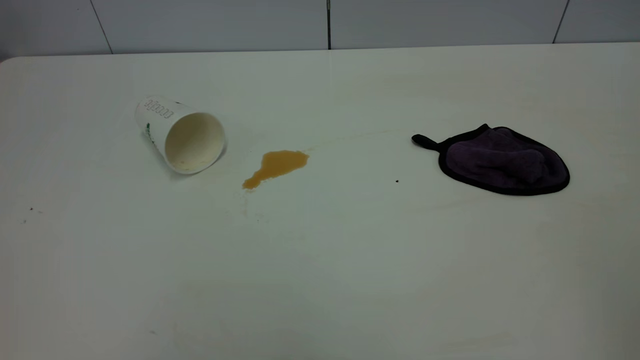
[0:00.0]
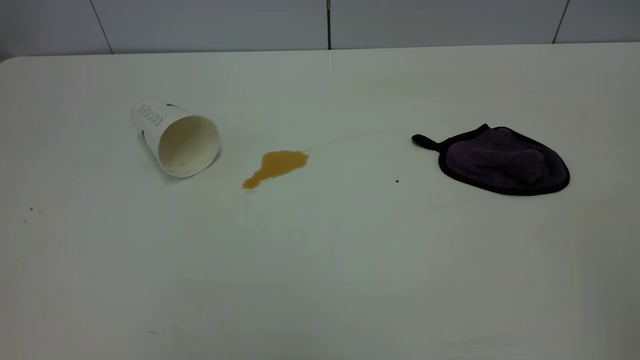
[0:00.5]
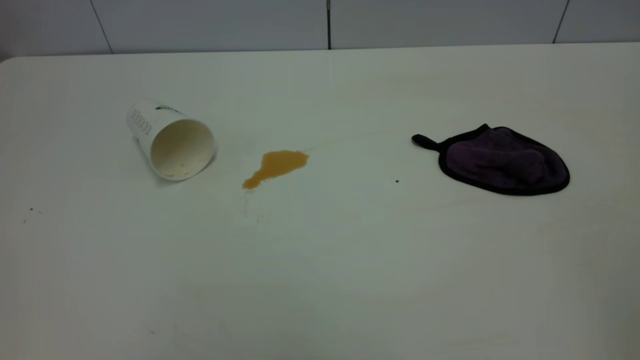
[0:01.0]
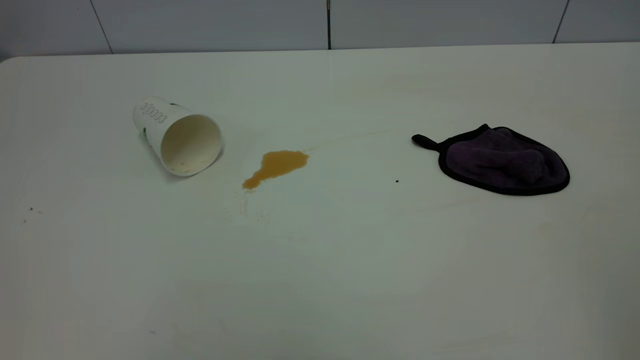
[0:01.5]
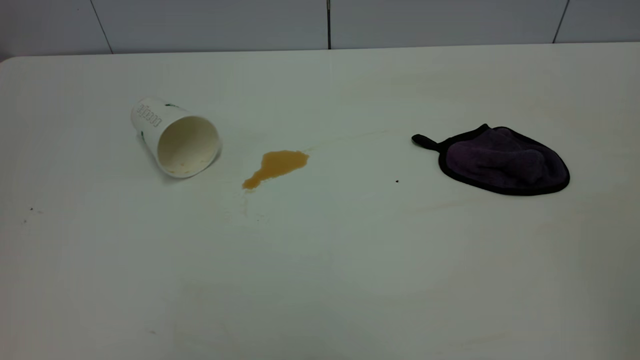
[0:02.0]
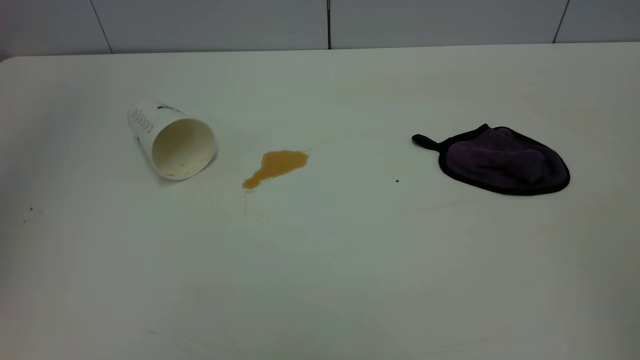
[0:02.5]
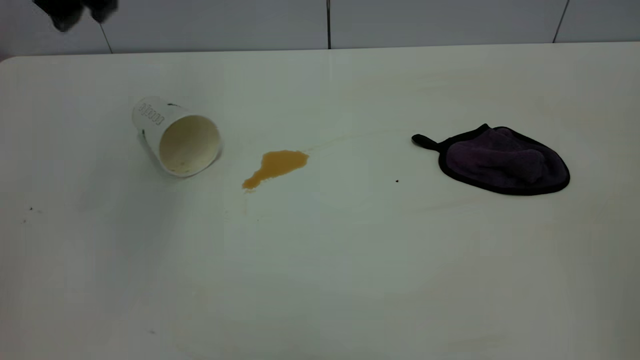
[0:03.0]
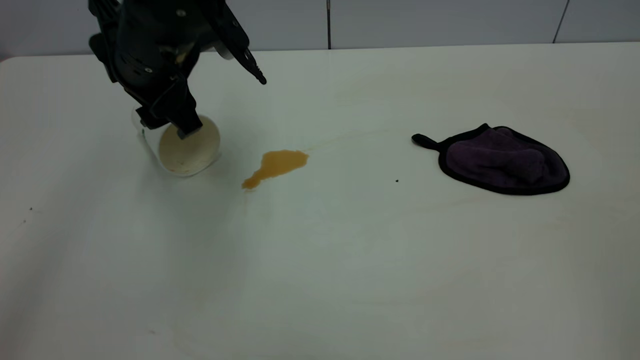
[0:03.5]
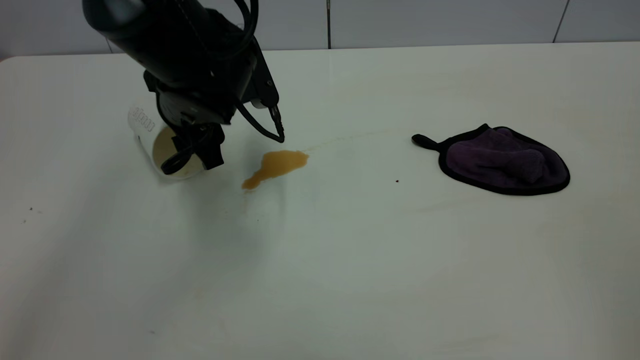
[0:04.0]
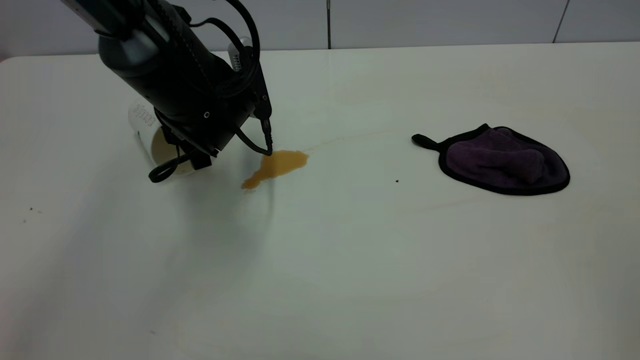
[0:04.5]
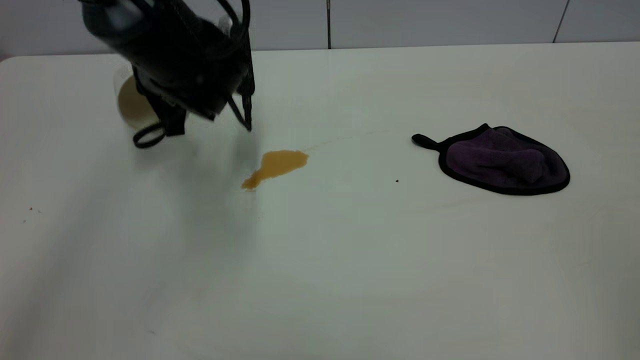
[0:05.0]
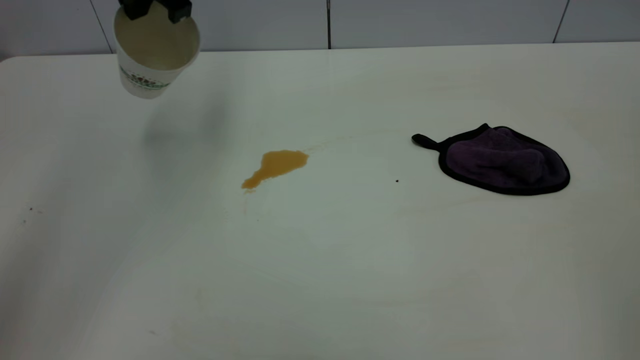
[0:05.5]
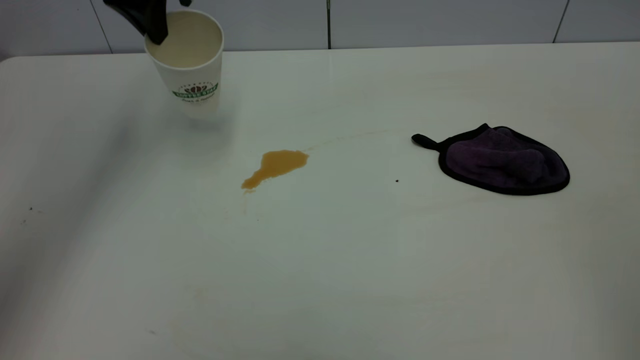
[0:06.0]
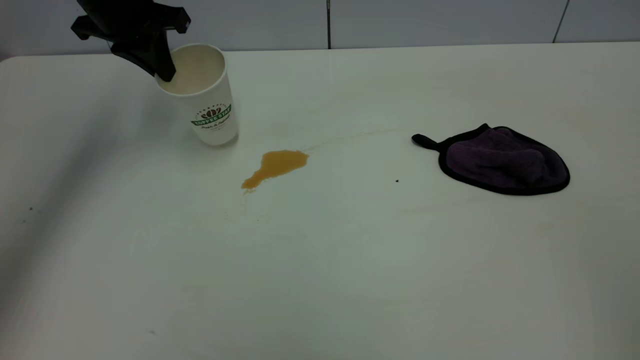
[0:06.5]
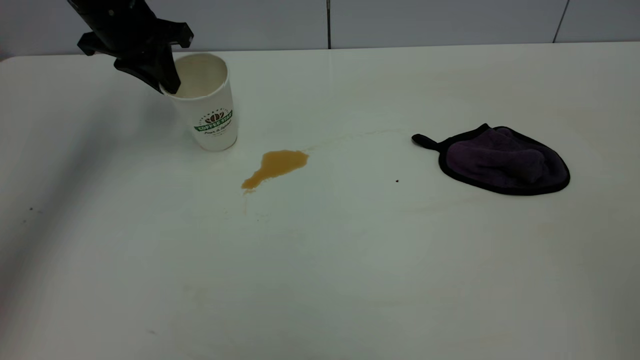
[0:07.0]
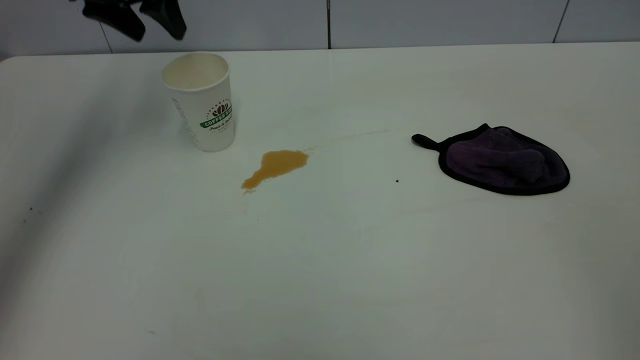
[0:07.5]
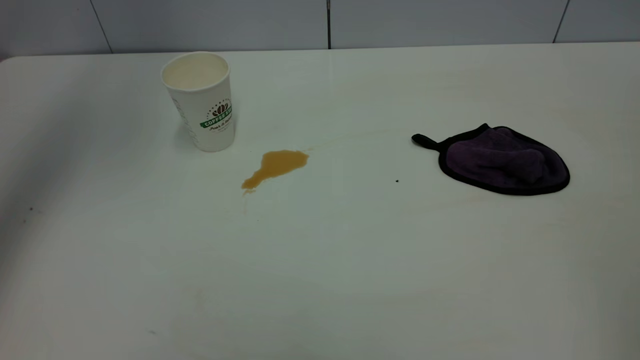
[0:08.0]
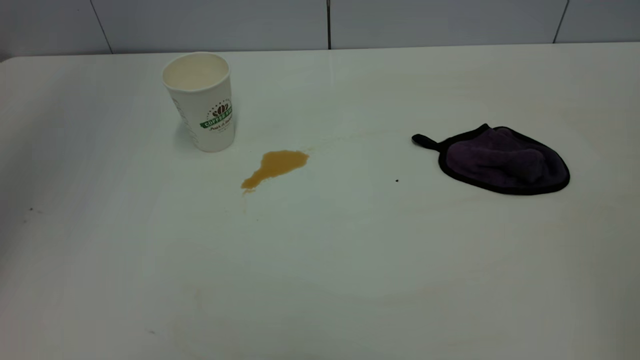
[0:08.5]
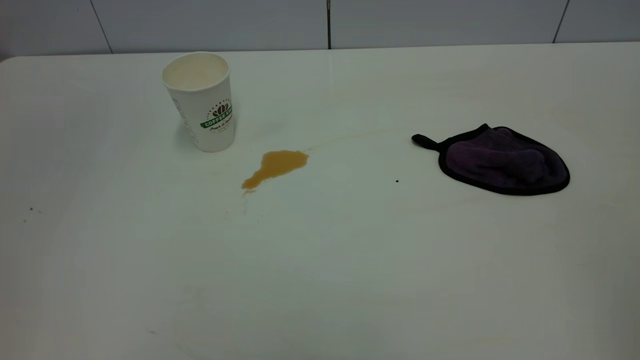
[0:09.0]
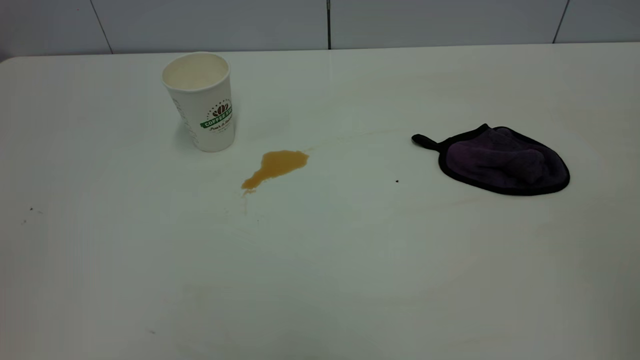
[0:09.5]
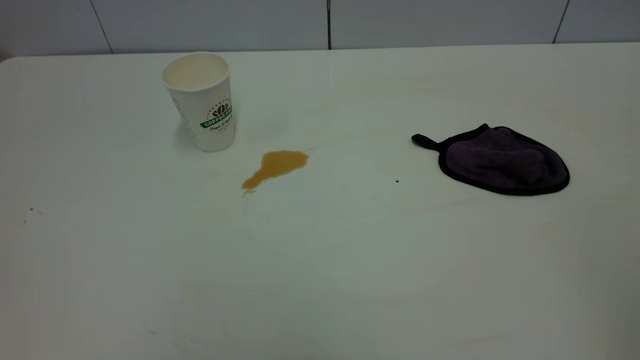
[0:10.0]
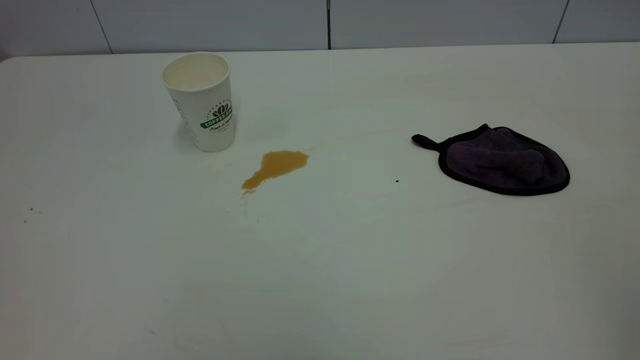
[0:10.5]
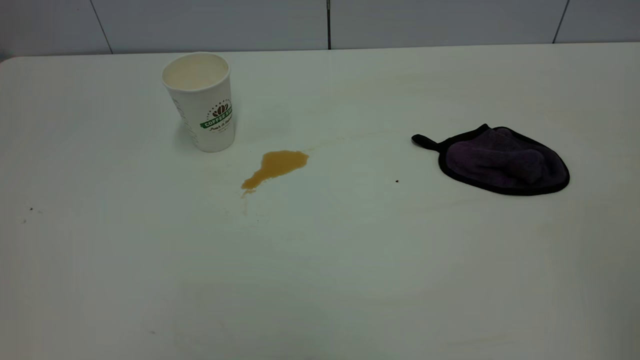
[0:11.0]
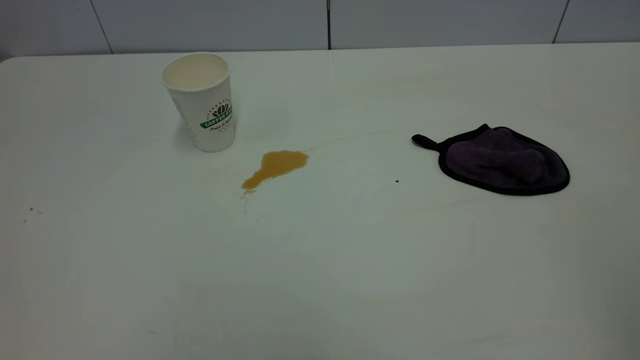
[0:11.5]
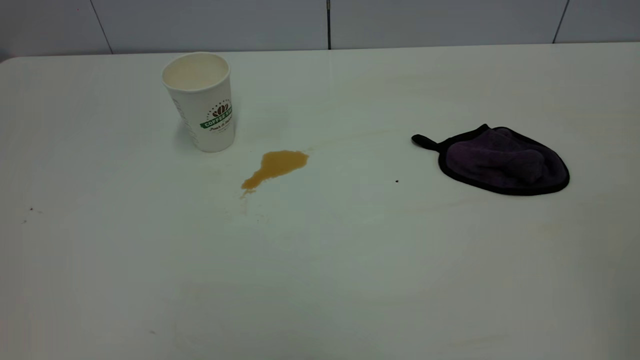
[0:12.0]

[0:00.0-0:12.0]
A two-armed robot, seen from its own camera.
Task of the whole recording: the left gripper pick up the fallen cup and place it upright, the right gripper grasp the purple rag and wipe the tea stain on the table, the right gripper put the purple rag back in its original position.
Step, 0:00.0 to 0:07.0: Stand the paper cup upright.
0:02.0 to 0:04.0: The left gripper travels downward, forward and to the right by approximately 50 cm.
0:04.0 to 0:06.0: The left gripper goes approximately 20 cm upward, forward and to the left, and closes up.
0:06.0 to 0:08.0: The left gripper moves upward, approximately 15 cm, and opens.
0:08.0 to 0:10.0: The left gripper heads backward, covering about 40 cm.

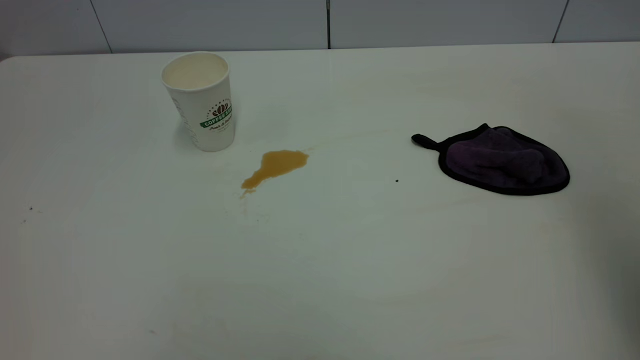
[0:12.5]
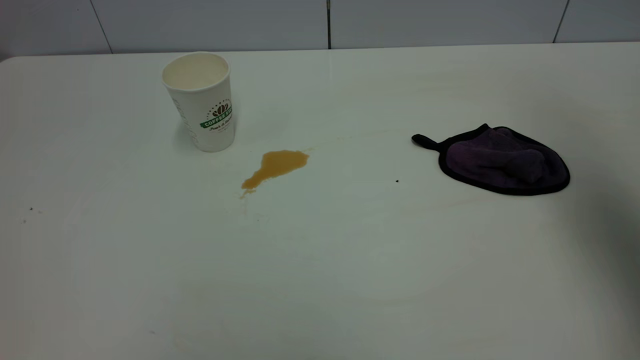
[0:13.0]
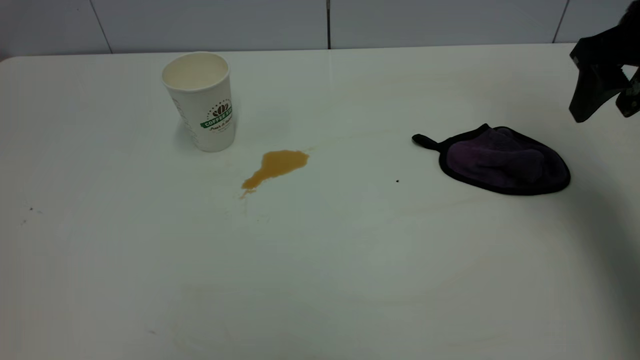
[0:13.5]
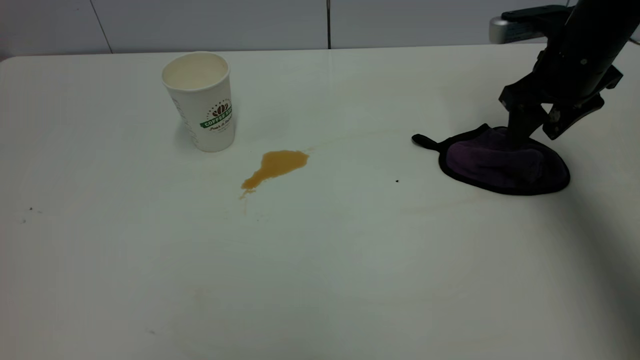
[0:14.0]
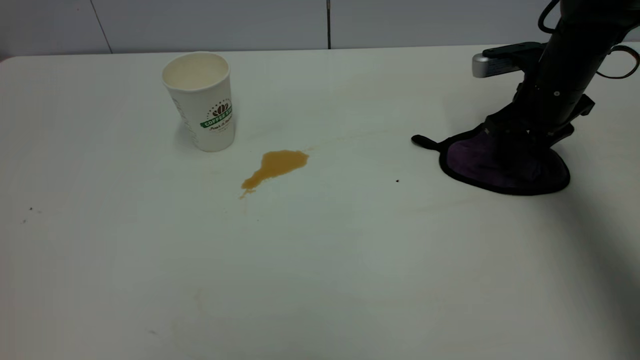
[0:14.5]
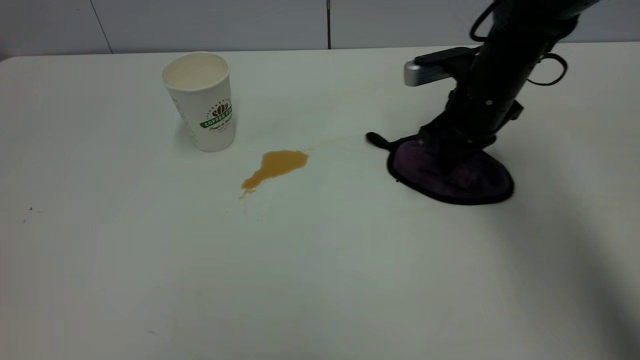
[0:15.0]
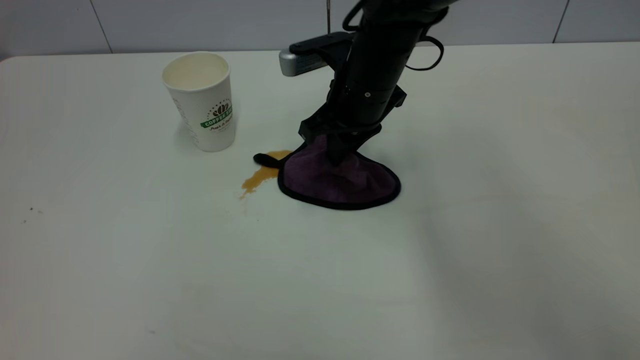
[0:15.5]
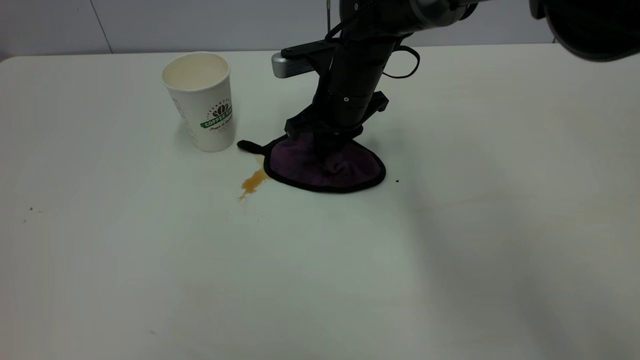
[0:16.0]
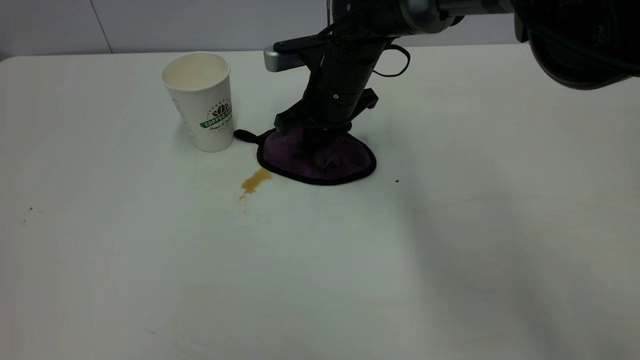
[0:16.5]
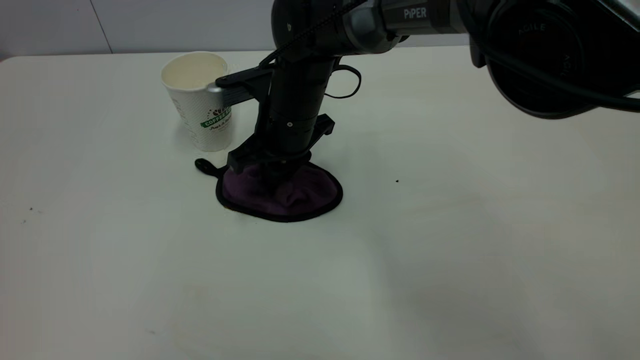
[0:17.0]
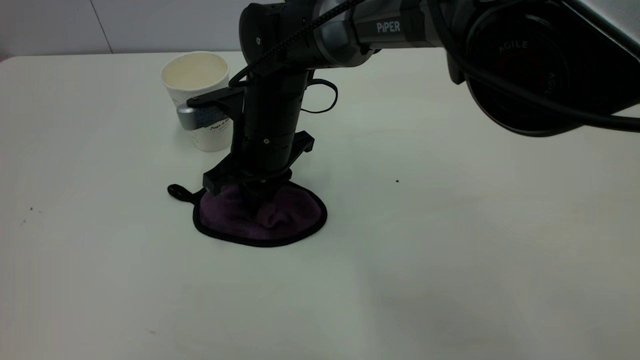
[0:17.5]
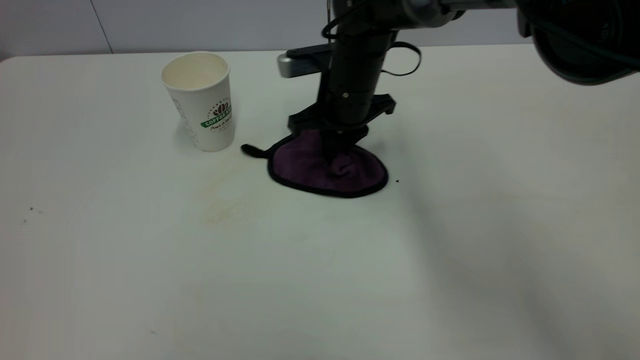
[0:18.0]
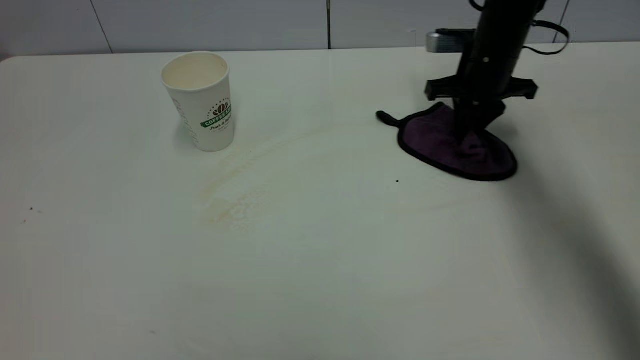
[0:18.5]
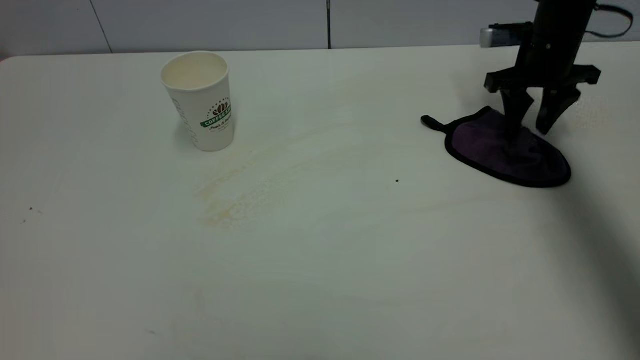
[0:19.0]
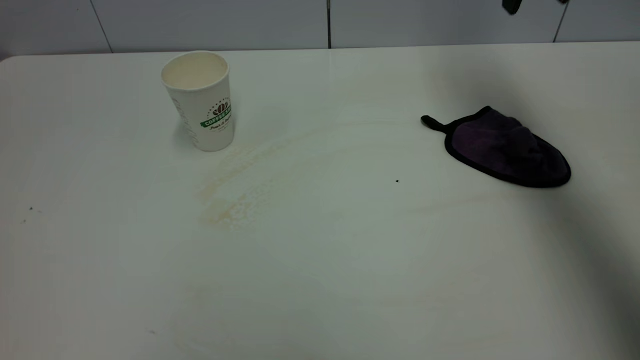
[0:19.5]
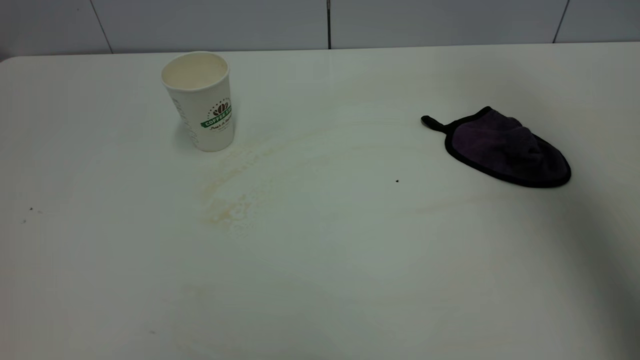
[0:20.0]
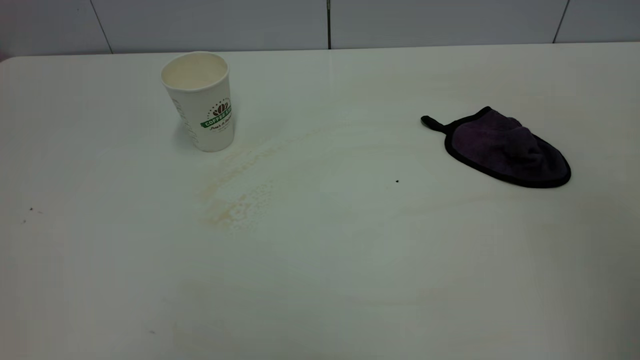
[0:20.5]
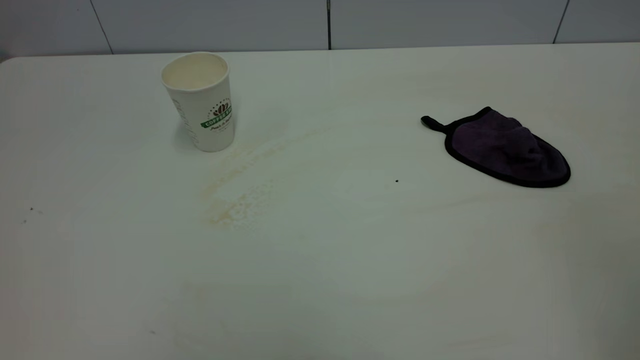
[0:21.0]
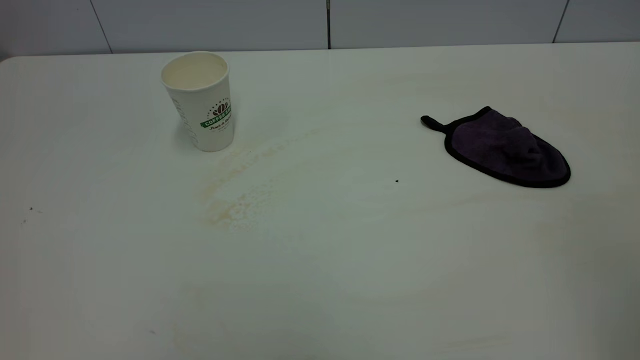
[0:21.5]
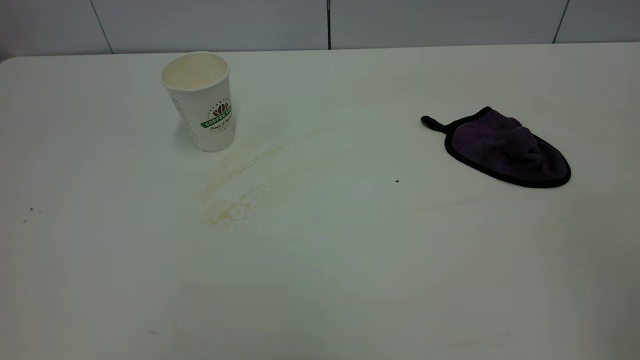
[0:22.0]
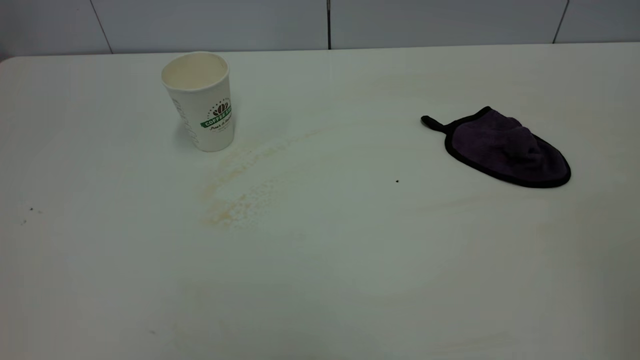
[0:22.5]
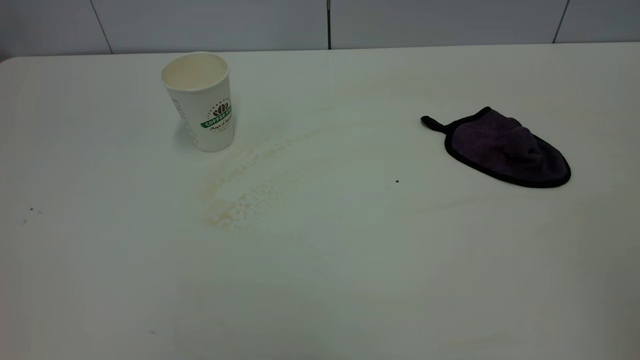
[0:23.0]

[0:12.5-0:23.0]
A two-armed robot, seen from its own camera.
Task of the whole recording: the left gripper pick up the fallen cup and place it upright, the right gripper grasp the purple rag and wipe the tea stain on the table, the right gripper put the purple rag back in its original position.
Step, 0:12.5 to 0:19.0: Wipe the stains off the table with a rag.
0:12.5 to 0:14.5: The right gripper travels downward and forward by roughly 40 cm, and closes up.
0:14.5 to 0:16.5: The right gripper is displaced to the left by approximately 25 cm, and closes its fingers.
0:16.5 to 0:19.0: The right gripper travels to the right by some 25 cm, and opens.
0:19.0 to 0:21.0: The right gripper moves backward and upward, approximately 50 cm.
